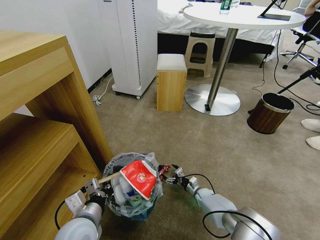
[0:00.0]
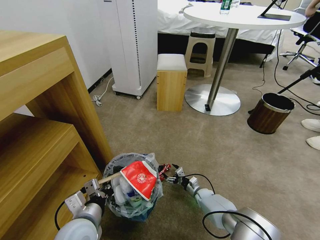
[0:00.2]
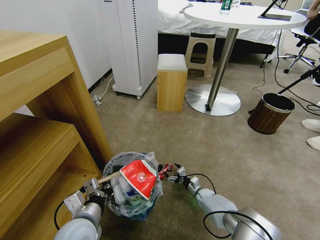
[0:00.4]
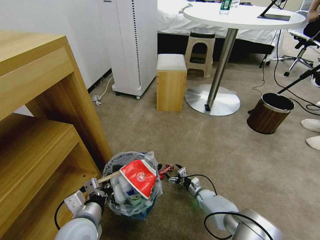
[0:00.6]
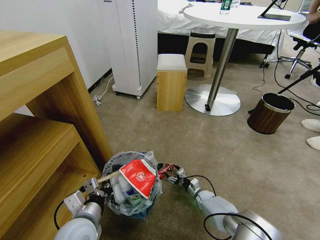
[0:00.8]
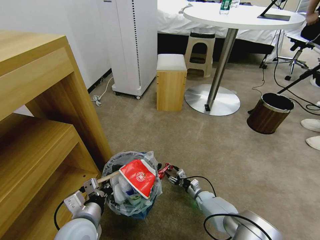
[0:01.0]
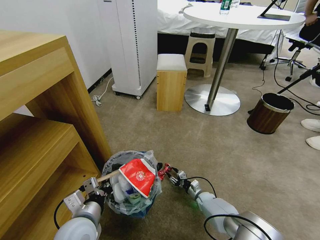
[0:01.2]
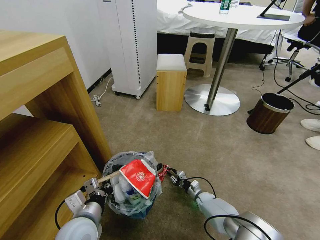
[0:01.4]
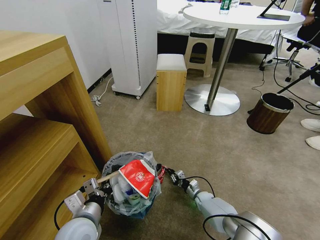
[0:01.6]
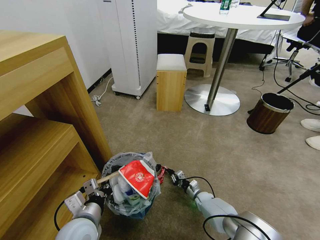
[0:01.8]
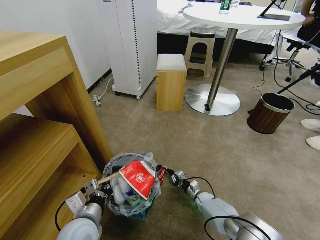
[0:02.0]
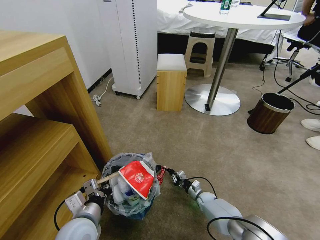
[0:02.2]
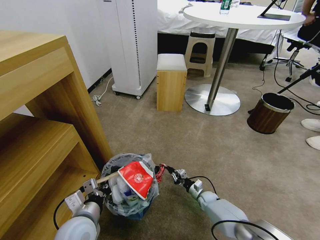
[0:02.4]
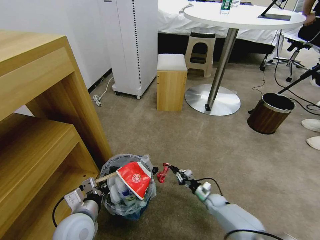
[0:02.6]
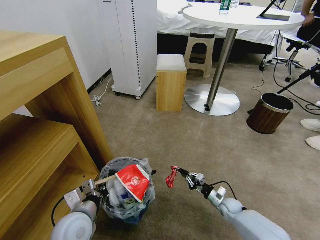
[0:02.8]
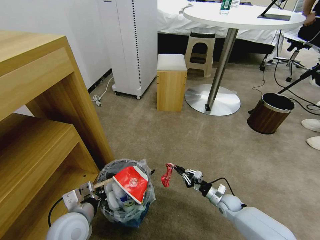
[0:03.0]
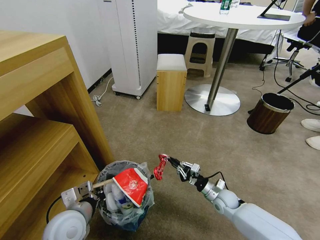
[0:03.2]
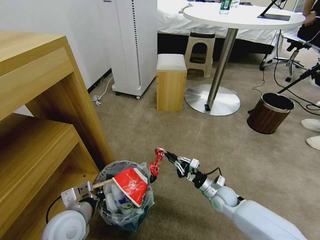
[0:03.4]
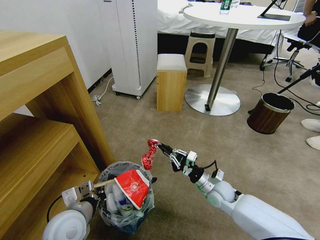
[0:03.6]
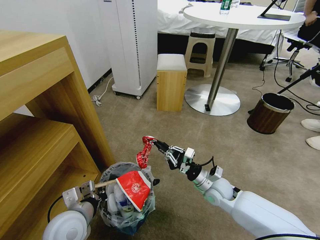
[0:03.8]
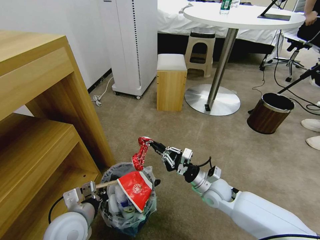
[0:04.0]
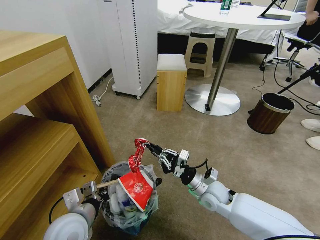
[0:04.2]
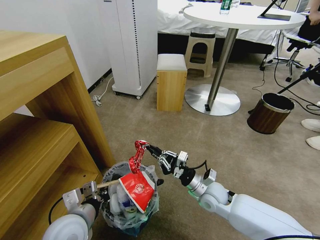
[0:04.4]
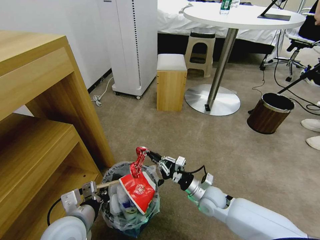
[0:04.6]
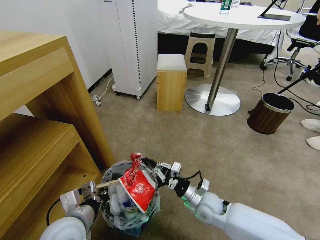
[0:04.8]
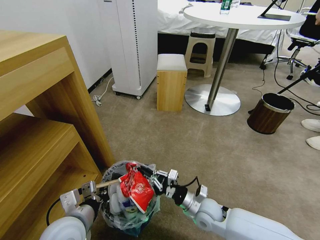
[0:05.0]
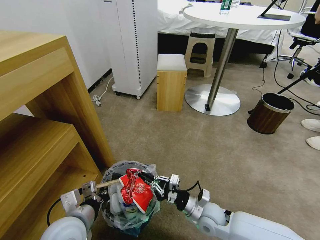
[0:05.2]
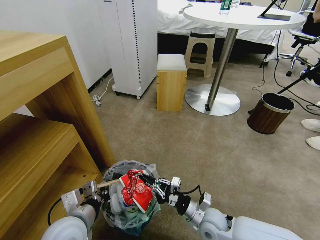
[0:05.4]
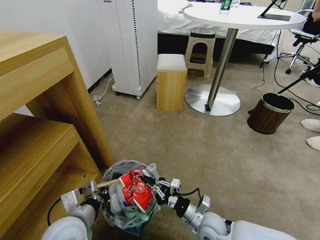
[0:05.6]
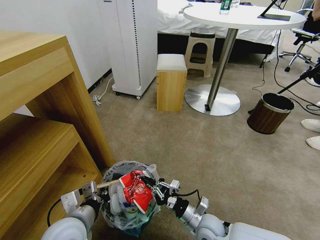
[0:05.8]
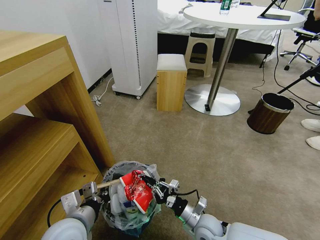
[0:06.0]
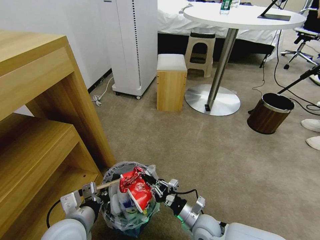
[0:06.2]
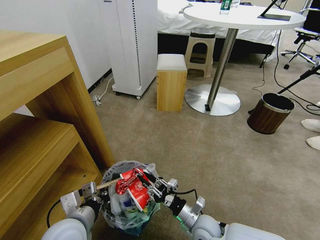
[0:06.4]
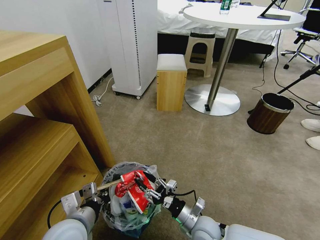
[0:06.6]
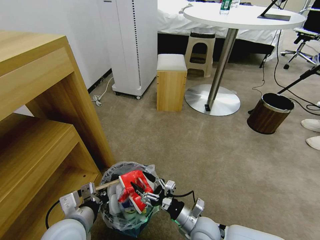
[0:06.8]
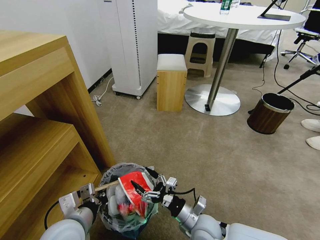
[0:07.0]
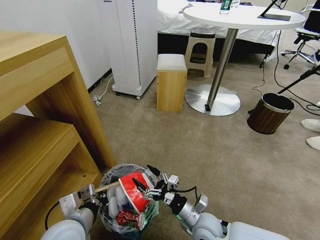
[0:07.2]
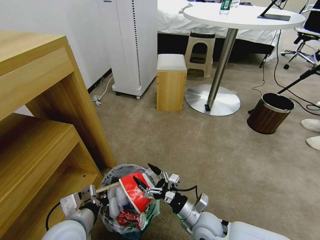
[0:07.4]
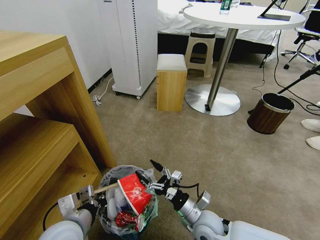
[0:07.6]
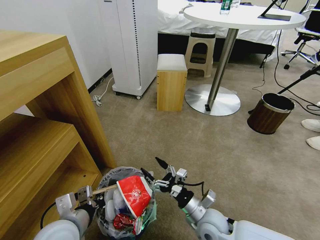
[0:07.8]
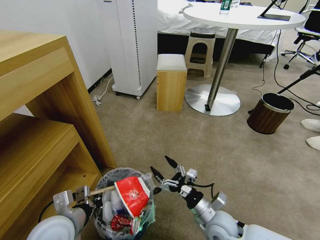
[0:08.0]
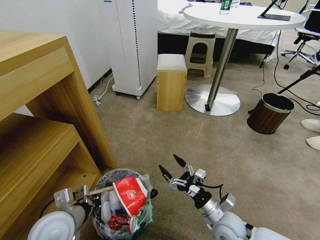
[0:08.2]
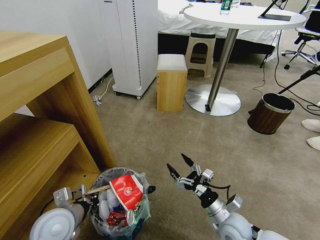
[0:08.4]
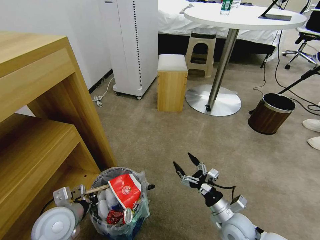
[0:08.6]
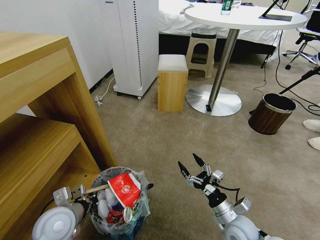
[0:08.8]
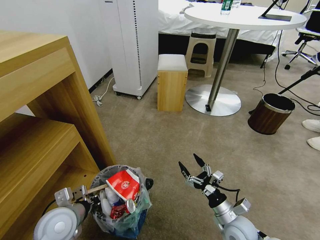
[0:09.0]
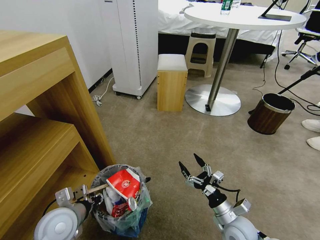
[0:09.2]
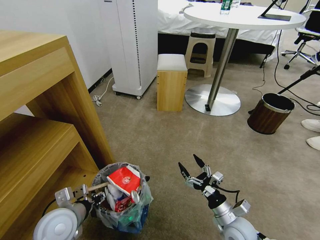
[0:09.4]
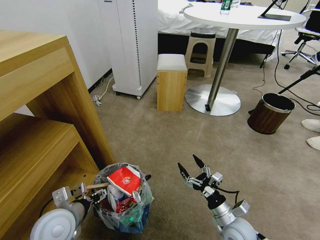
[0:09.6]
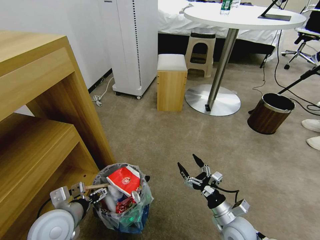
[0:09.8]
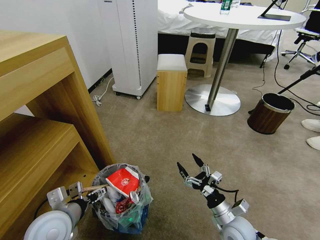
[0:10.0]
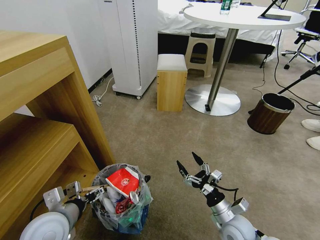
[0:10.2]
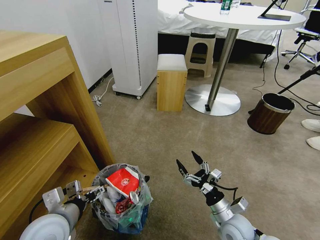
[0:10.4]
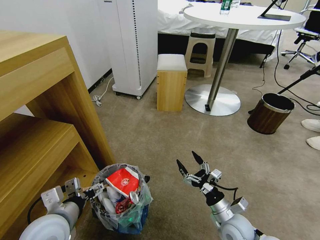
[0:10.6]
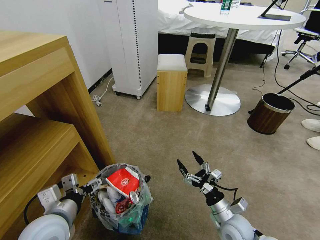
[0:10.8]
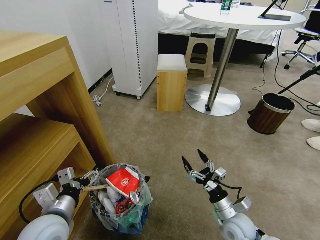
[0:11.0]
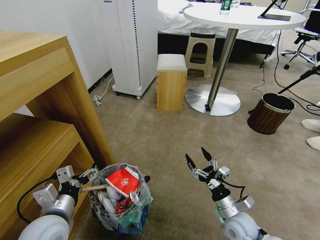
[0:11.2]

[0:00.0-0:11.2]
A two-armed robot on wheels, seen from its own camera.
Task of the whole recording: Pick up the trash bin and place the garbage on the floor into it.
0:00.0 to 0:01.6: The right gripper closes its fingers.
0:01.6 to 0:03.2: The right gripper travels upward by approximately 15 cm.
0:03.2 to 0:04.8: The right gripper is displaced to the left and upward by roughly 15 cm.
0:04.8 to 0:06.4: The right gripper travels backward by roughly 5 cm.
0:06.4 to 0:08.0: The right gripper travels upward by about 5 cm, and opens up.
0:08.0 to 0:09.6: The right gripper is displaced to the right by about 5 cm. The left gripper opens its fingers.

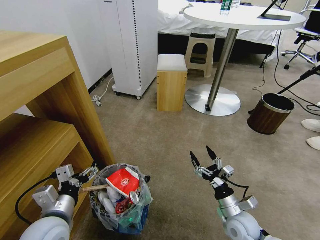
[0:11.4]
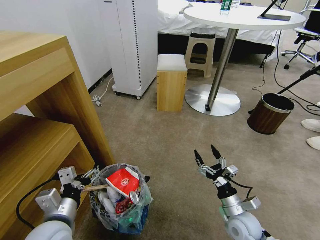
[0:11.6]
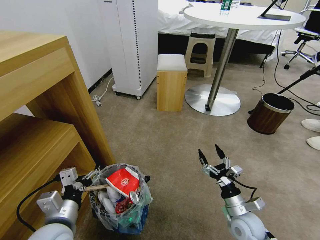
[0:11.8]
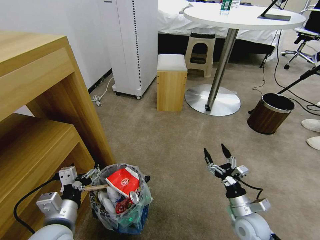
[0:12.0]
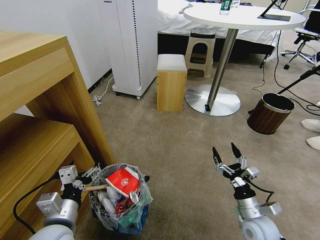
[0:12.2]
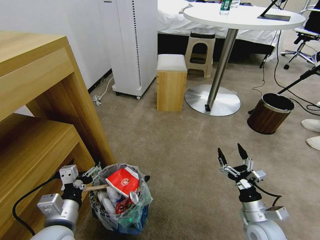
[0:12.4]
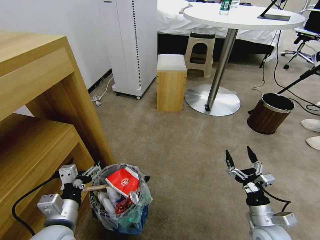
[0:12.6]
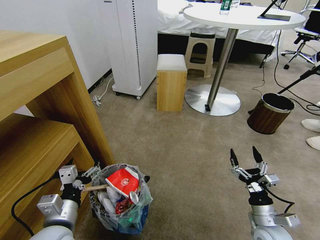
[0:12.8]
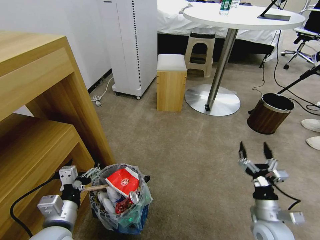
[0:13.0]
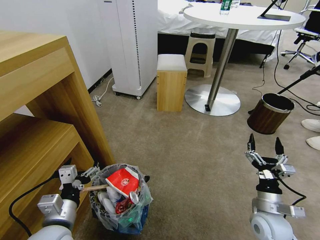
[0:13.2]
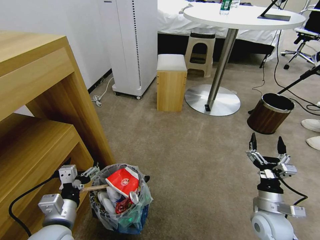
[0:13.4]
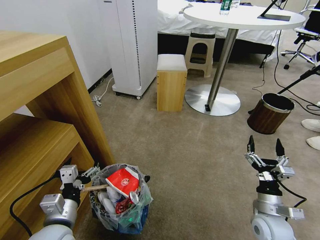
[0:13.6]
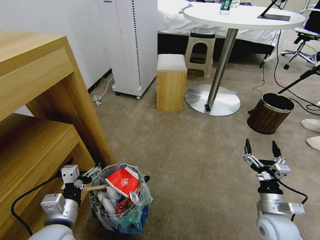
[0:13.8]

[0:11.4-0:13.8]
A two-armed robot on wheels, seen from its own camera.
Task of the whole recording: Pick up the trash bin and place the garbage on the floor into it.
0:11.4 to 0:12.6: The right gripper heads to the right, covering roughly 5 cm.
